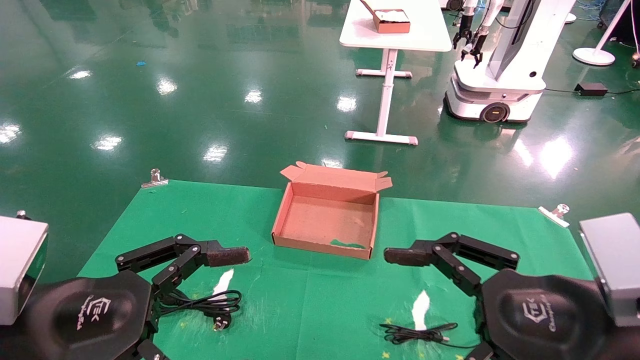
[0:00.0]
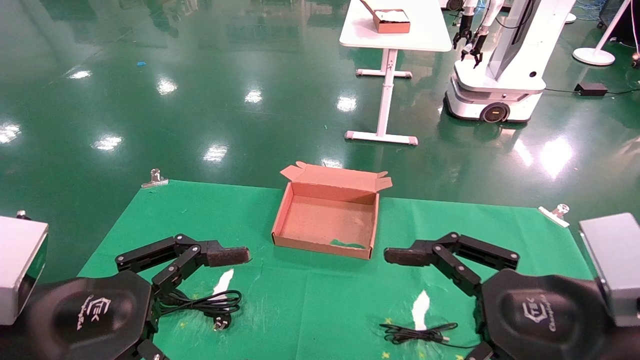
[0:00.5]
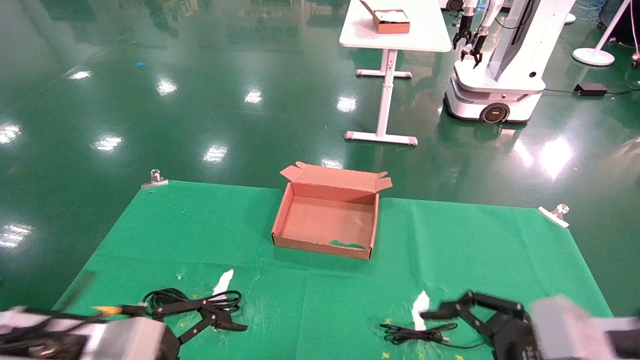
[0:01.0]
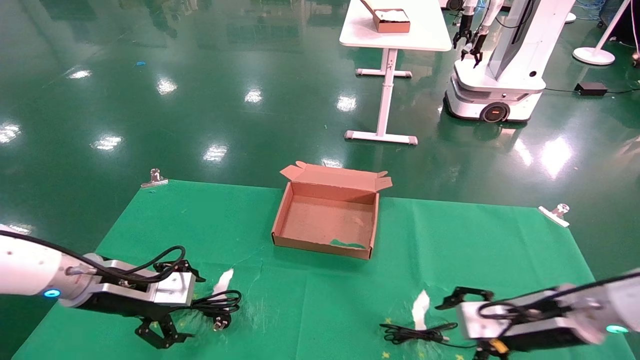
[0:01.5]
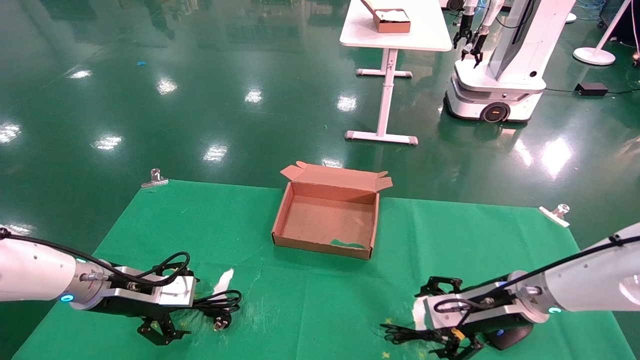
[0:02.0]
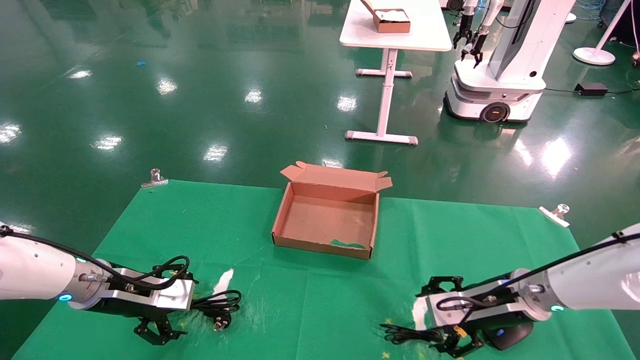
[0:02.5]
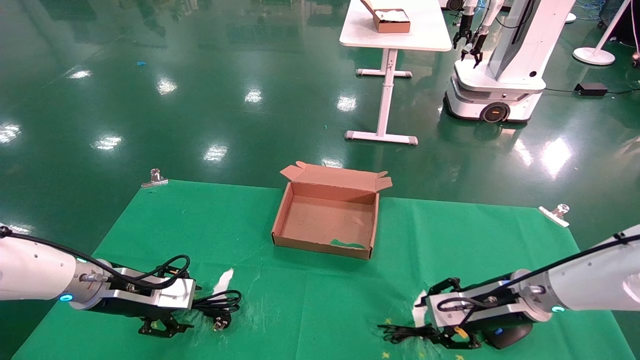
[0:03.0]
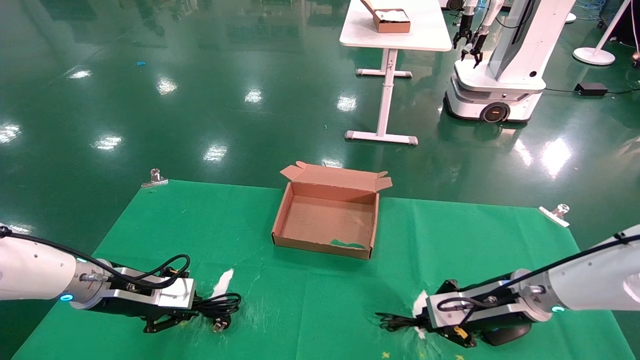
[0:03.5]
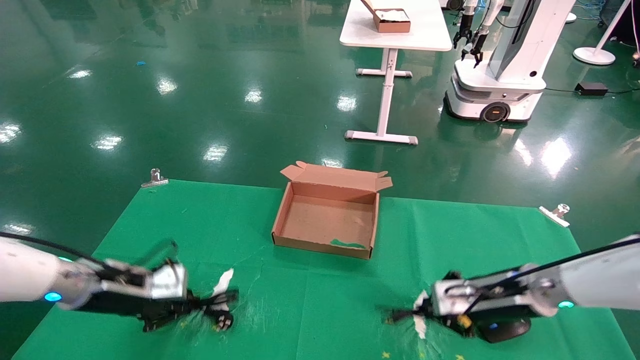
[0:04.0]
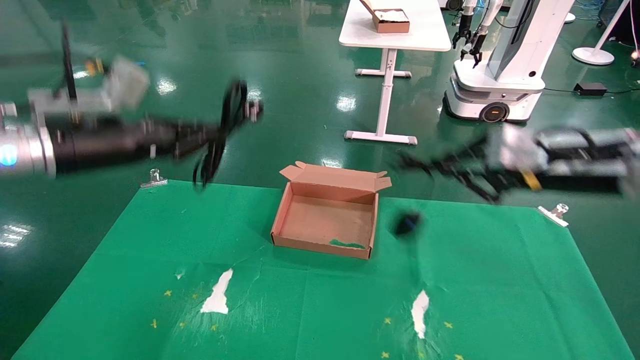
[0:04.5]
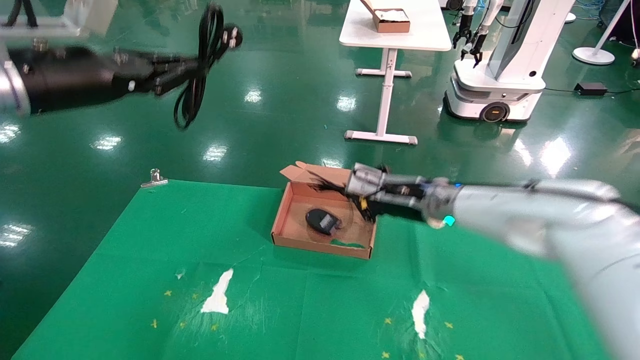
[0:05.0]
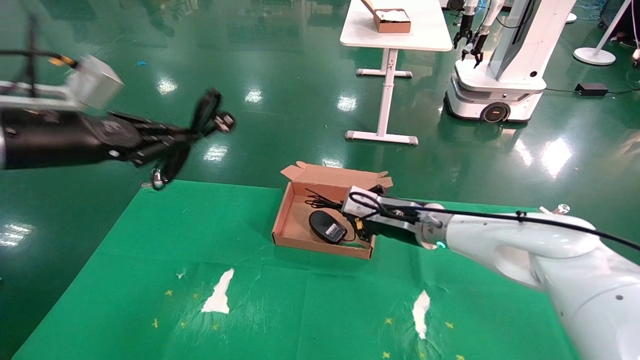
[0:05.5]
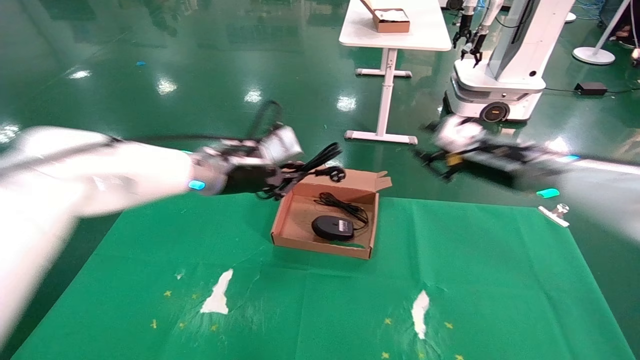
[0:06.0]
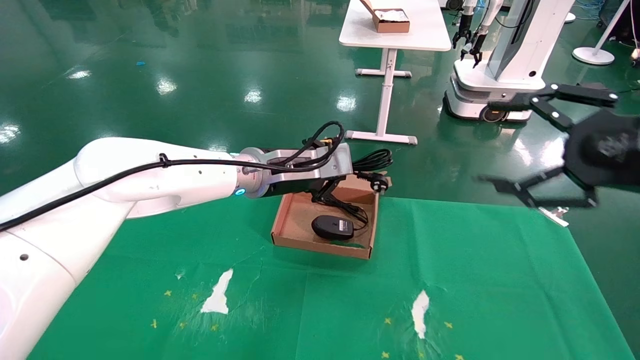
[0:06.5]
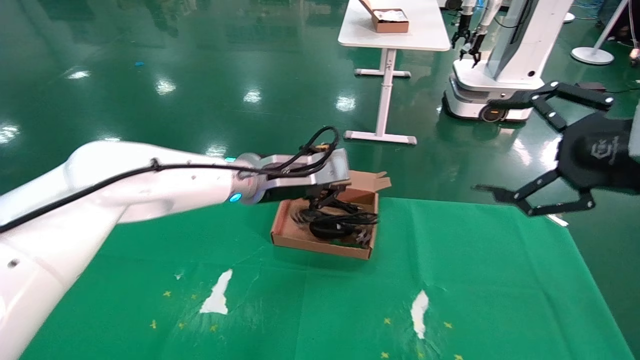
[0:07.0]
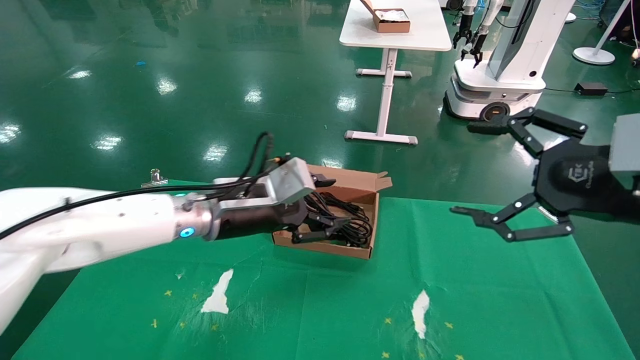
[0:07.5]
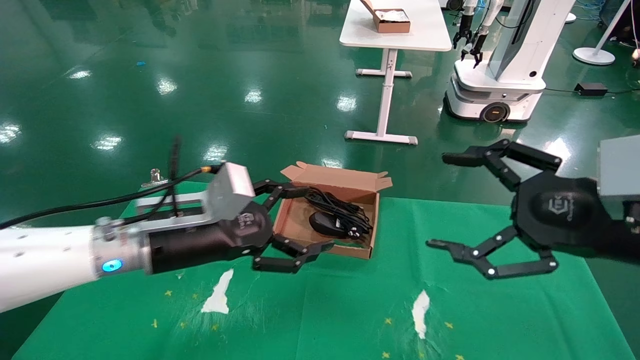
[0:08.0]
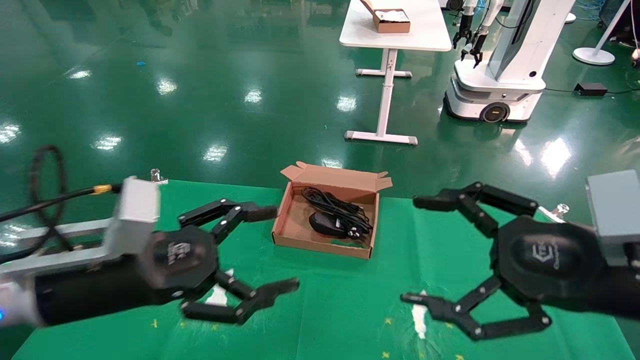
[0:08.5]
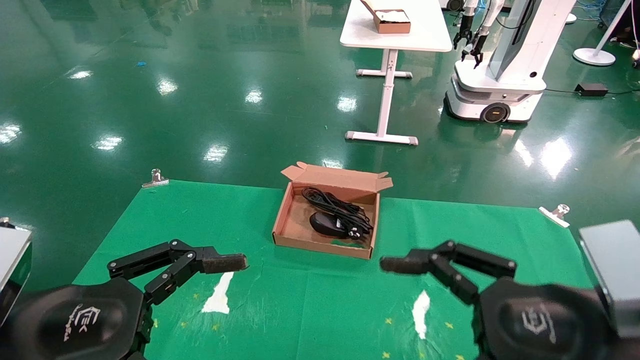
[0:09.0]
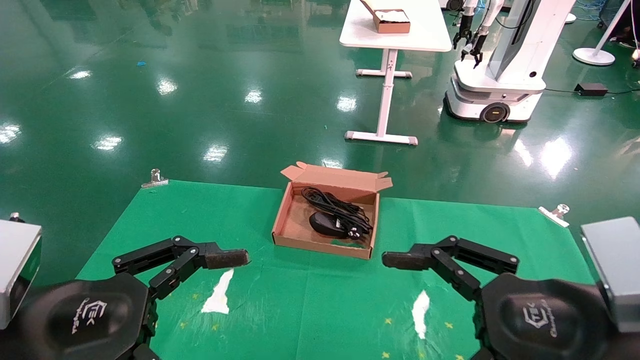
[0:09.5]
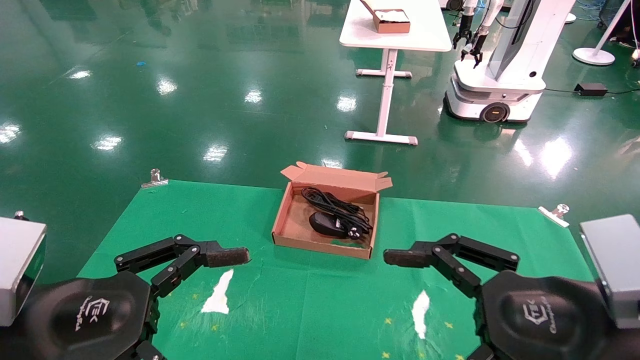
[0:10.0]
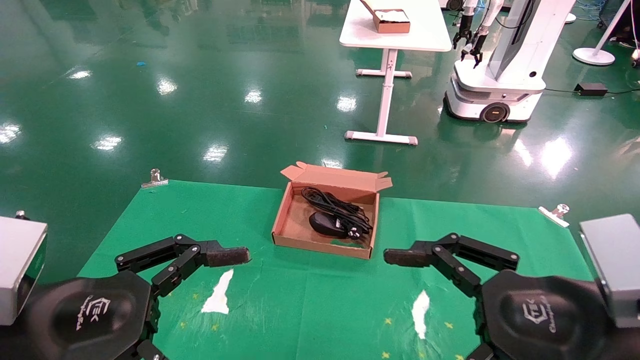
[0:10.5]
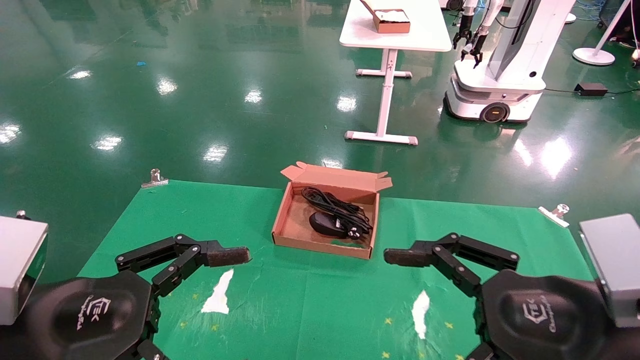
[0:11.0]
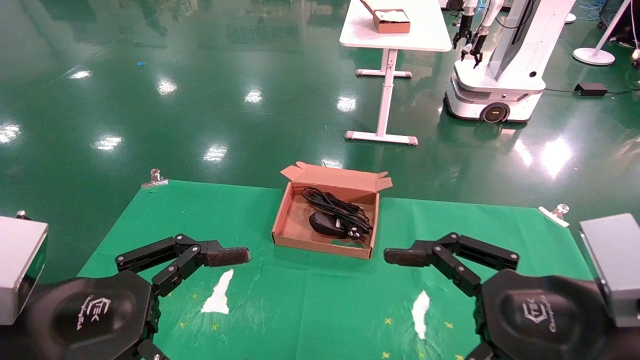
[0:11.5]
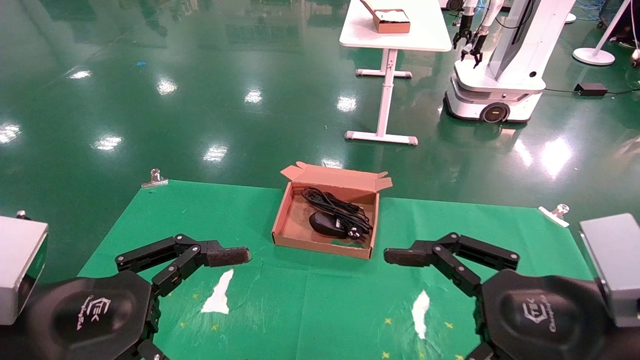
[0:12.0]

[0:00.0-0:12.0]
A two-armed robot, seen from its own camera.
Step, 0:01.0 to 0:03.5: Grab and lift both the mouse and power cord from the accessory packaging area at the same time.
Step, 0:04.0 to 0:07.0: Place the mouse and power cord into the box.
0:00.0 to 0:02.0: The left gripper moves forward, roughly 25 cm, while the right gripper moves forward and downward, about 25 cm.
0:02.0 to 0:04.0: The right gripper closes, while the left gripper closes up.
0:04.0 to 0:06.0: The left gripper is displaced to the right and upward by approximately 20 cm; the right gripper swings up and down, roughly 15 cm each way, with 2 reversals.
0:06.0 to 0:08.0: The left gripper is displaced backward and downward by some 15 cm, and opens up, while the right gripper heads backward, covering roughly 20 cm, and opens its fingers.
0:08.0 to 0:10.0: The left gripper goes approximately 15 cm backward and to the left. Meanwhile the right gripper is displaced to the left, backward and downward by some 10 cm.
0:10.0 to 0:12.0: Both grippers stay about where they are.
